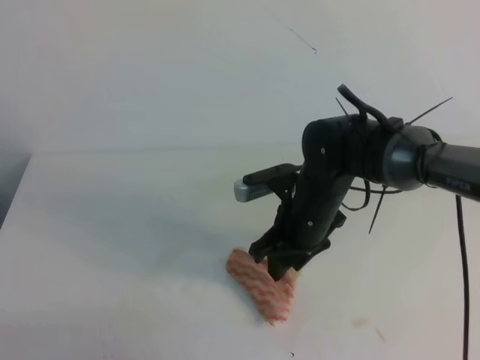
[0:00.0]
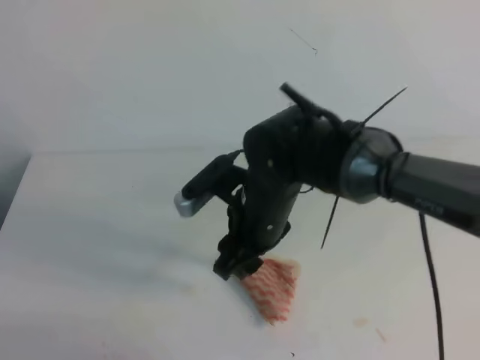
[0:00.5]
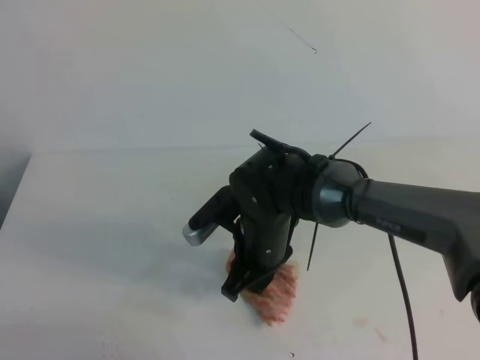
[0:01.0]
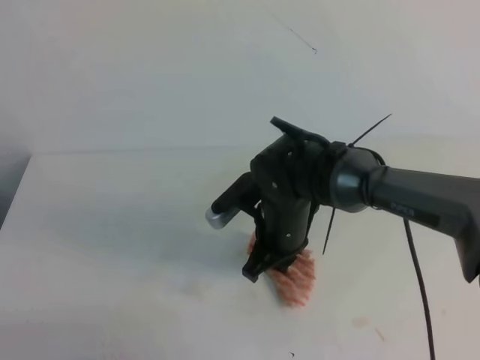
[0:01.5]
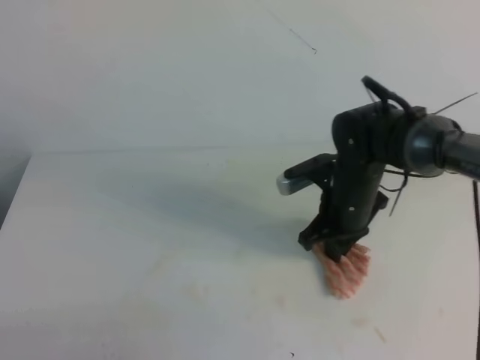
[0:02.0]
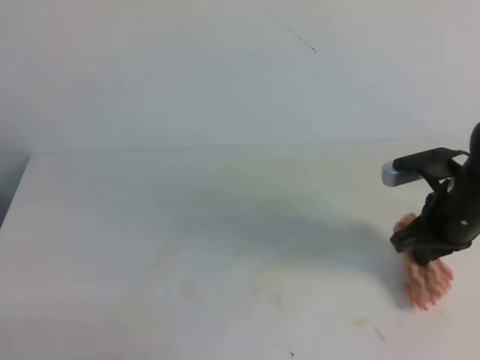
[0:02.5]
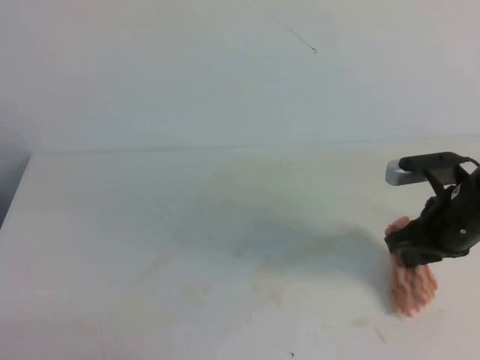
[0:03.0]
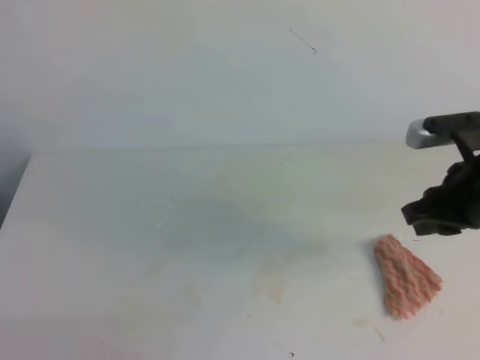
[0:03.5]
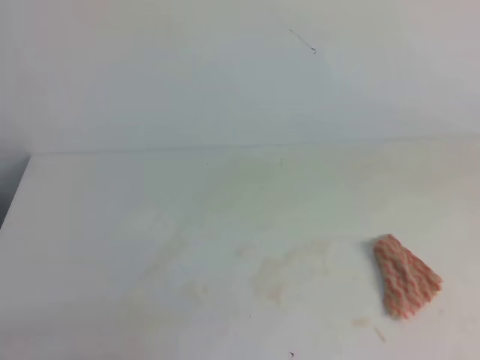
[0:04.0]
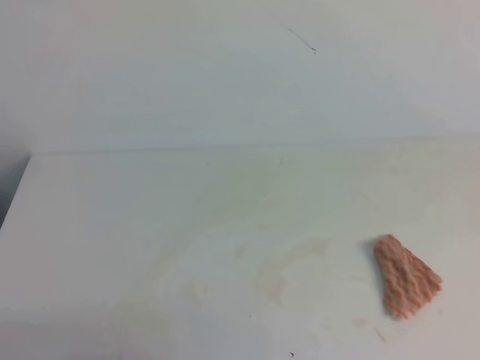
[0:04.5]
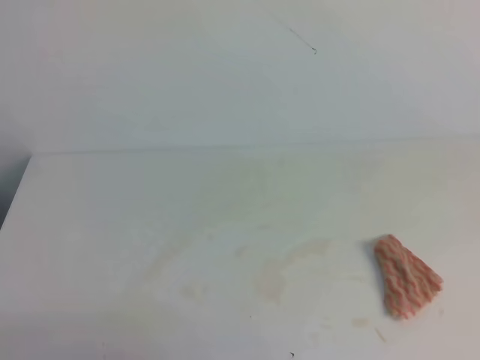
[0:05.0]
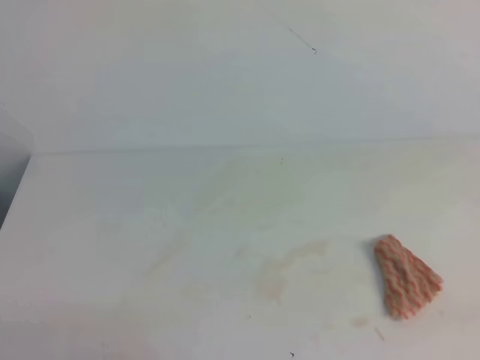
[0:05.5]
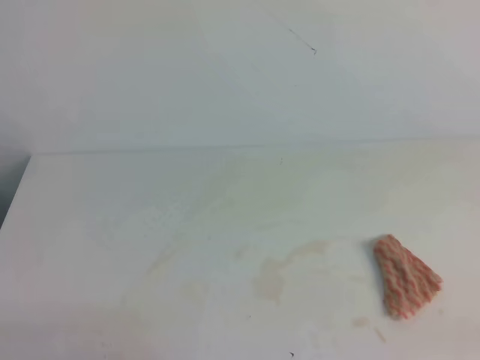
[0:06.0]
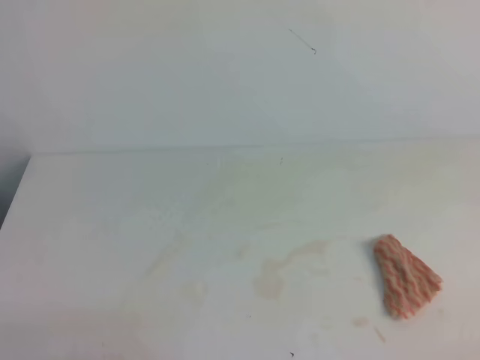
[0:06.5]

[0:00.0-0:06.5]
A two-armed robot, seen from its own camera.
0:00.0 to 0:02.0: The right gripper moves to the right, approximately 5 cm, and closes.
0:02.0 to 0:04.5: The right gripper is displaced backward, upward and to the right by approximately 40 cm, and opens, then closes once more.
